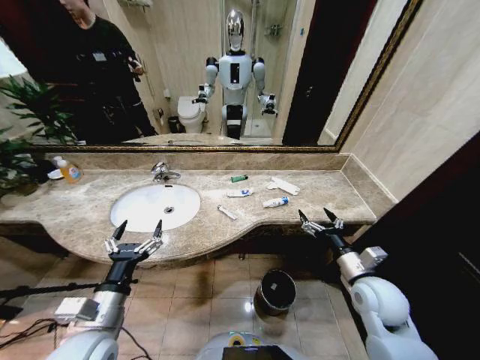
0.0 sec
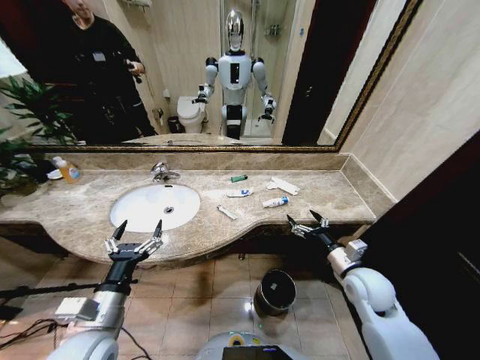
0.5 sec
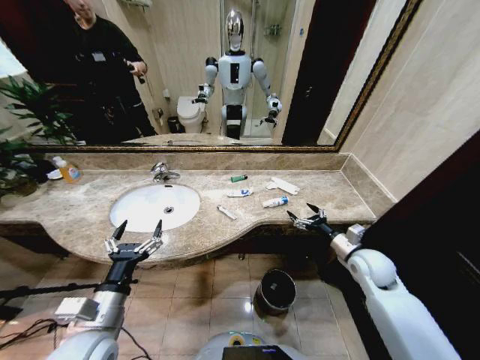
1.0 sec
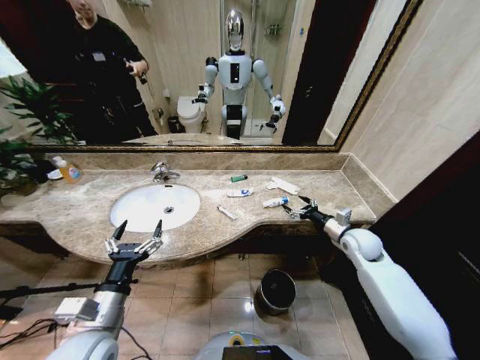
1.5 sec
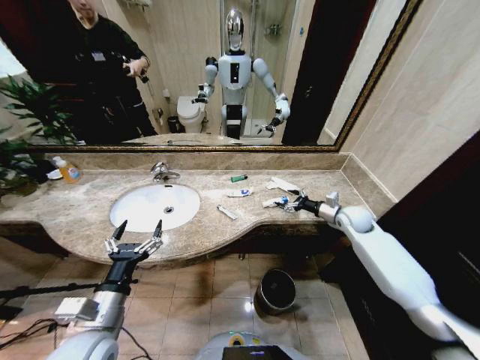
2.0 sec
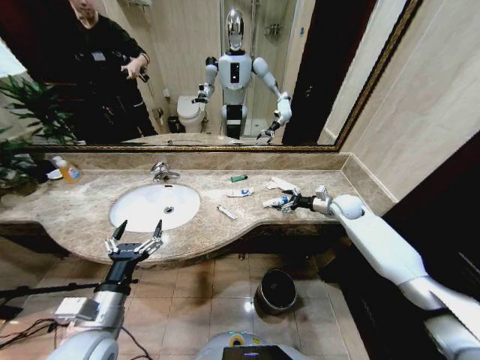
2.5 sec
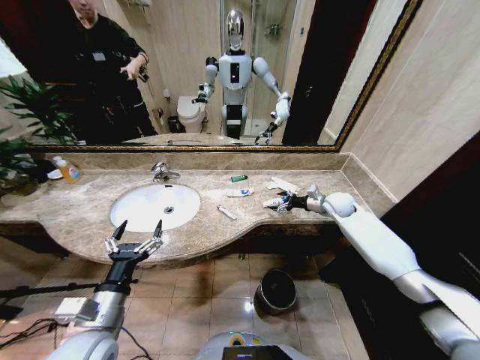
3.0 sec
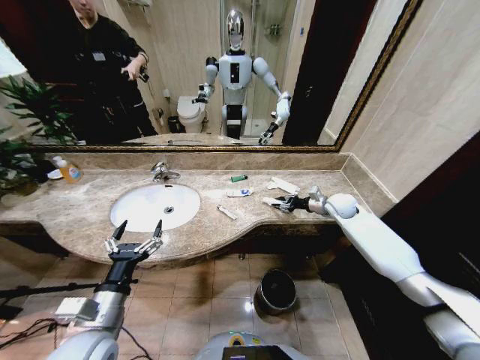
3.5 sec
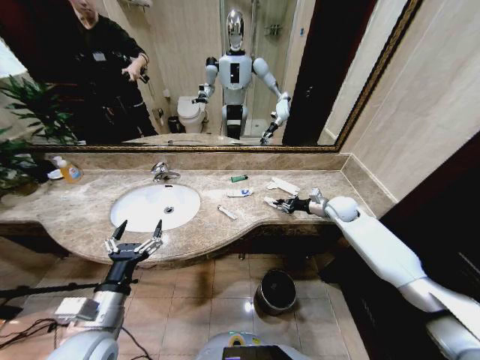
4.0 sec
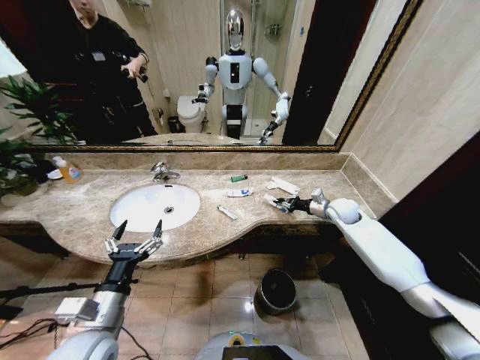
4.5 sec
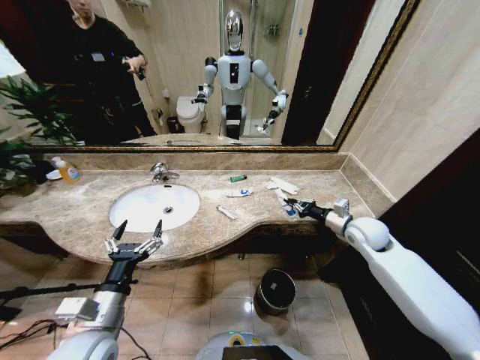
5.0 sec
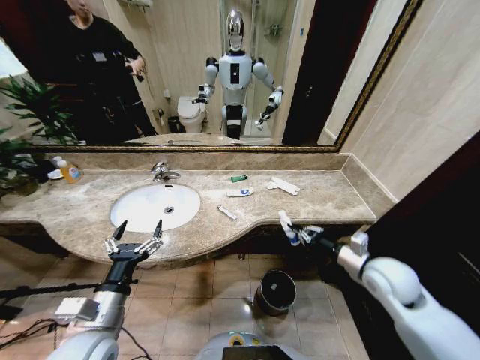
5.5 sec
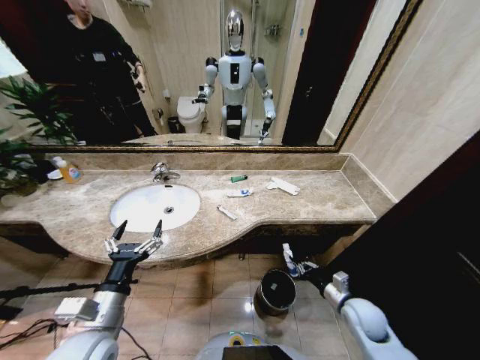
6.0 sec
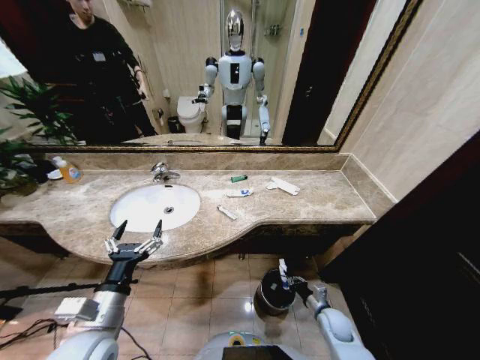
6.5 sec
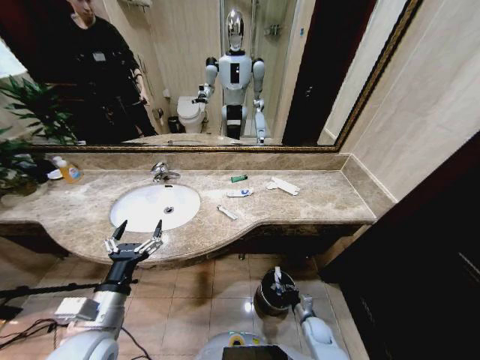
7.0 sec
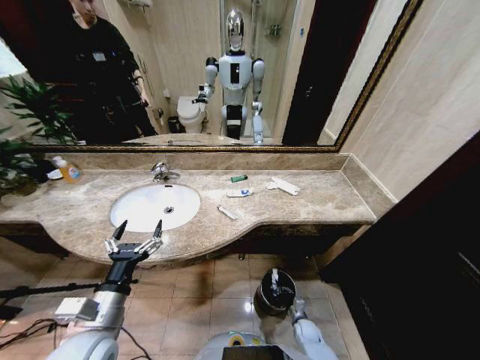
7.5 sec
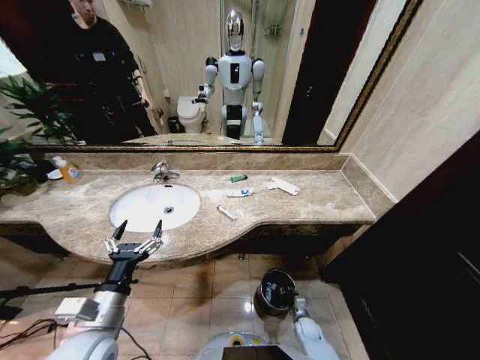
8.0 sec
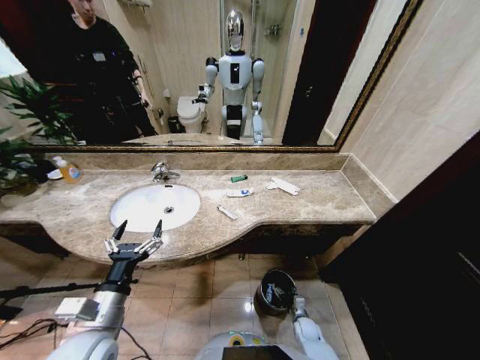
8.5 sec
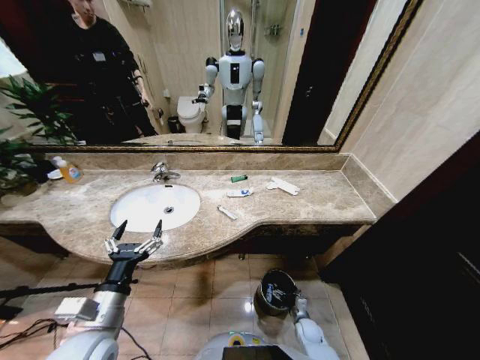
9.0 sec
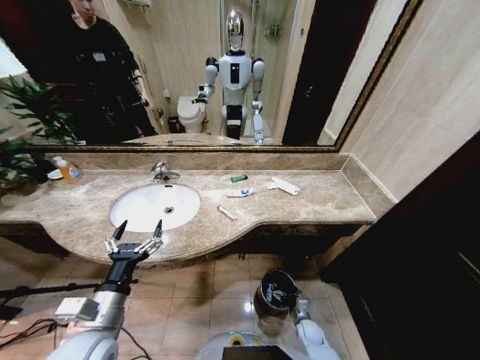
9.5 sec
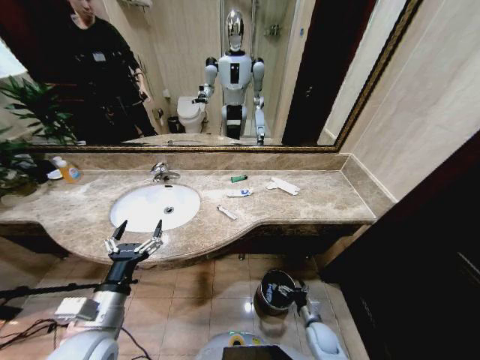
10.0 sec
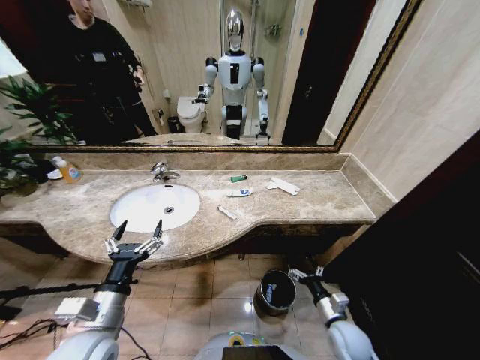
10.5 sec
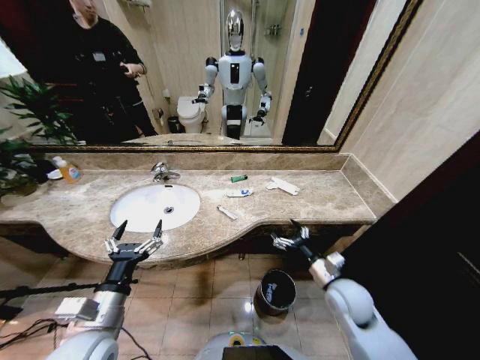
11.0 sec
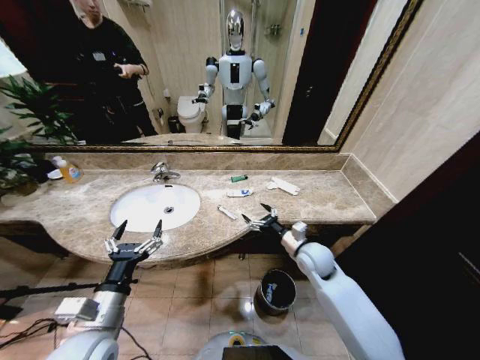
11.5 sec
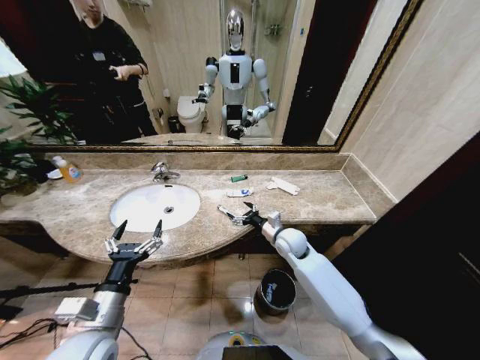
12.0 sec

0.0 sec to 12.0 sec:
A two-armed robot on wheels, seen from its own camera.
Task of the whole recording: Pick up the trash from the sink and place it in the trash bin.
2.0 sec to 4.0 sec: The right gripper closes.
4.0 sec to 6.0 sec: The right gripper shifts about 30 cm backward and downward.
6.0 sec to 8.0 sec: The right gripper travels downward by about 25 cm.
8.0 sec to 10.0 sec: The right gripper travels upward by approximately 5 cm, and opens up.
10.0 sec to 12.0 sec: The right gripper heads upward, forward and to the left, covering some 35 cm.

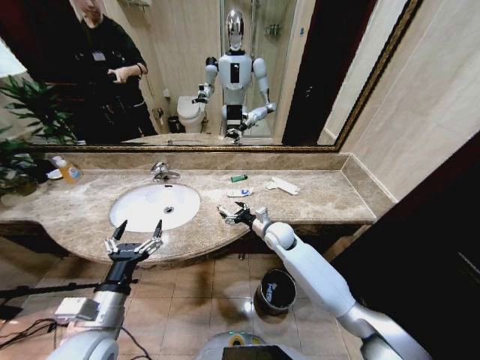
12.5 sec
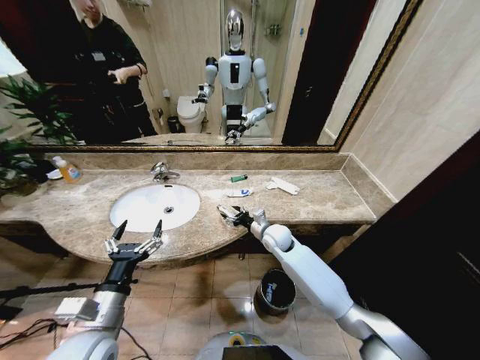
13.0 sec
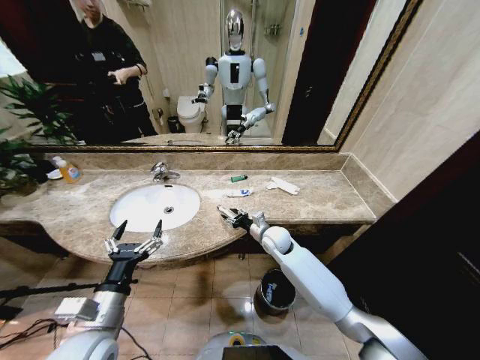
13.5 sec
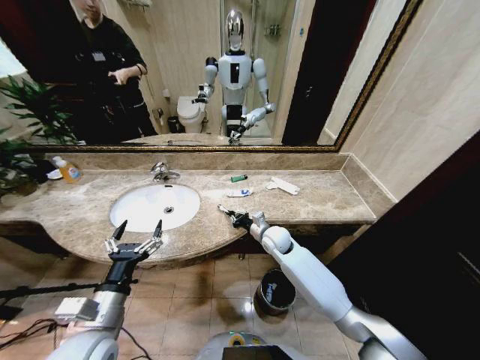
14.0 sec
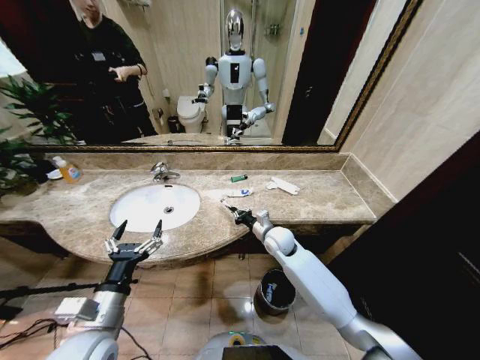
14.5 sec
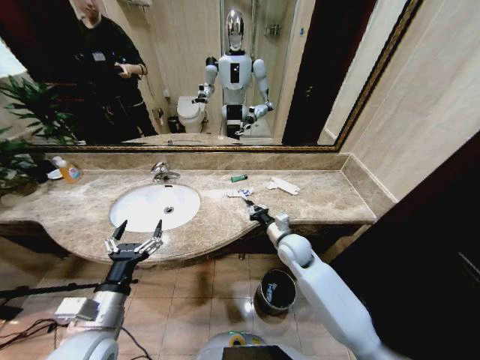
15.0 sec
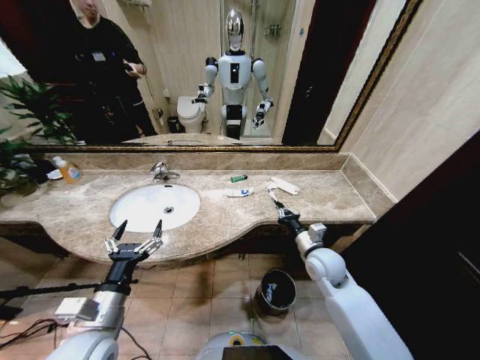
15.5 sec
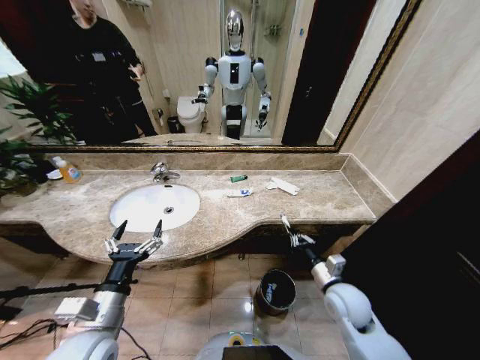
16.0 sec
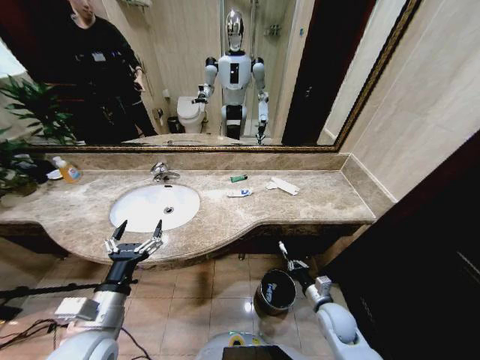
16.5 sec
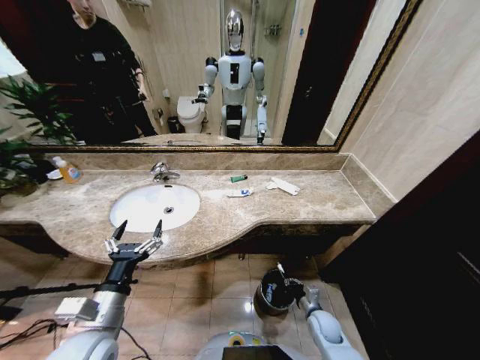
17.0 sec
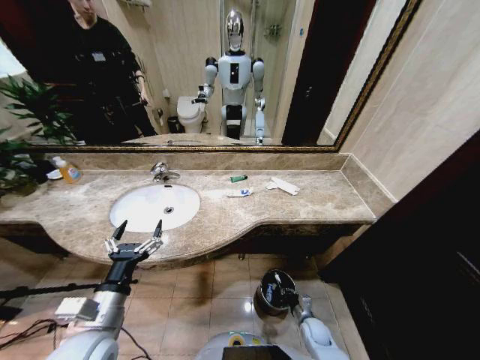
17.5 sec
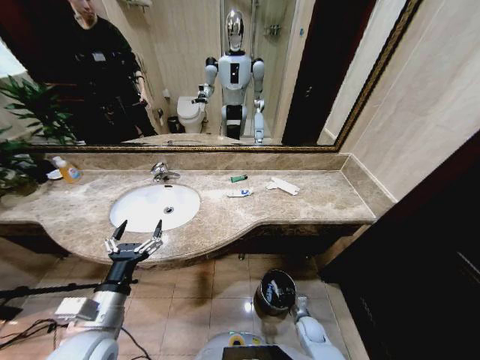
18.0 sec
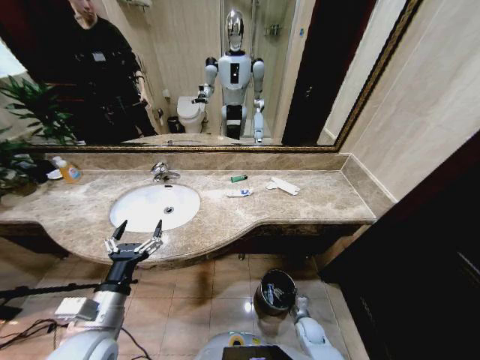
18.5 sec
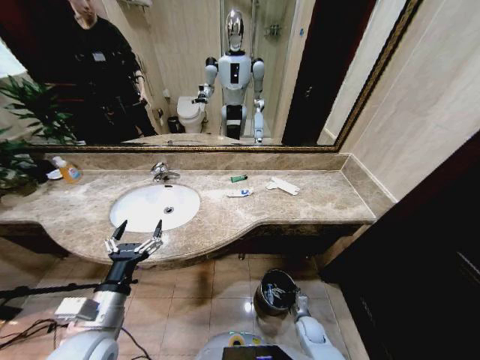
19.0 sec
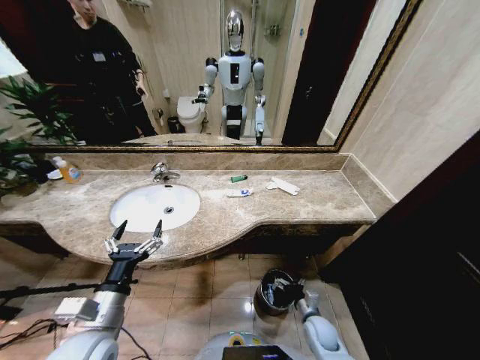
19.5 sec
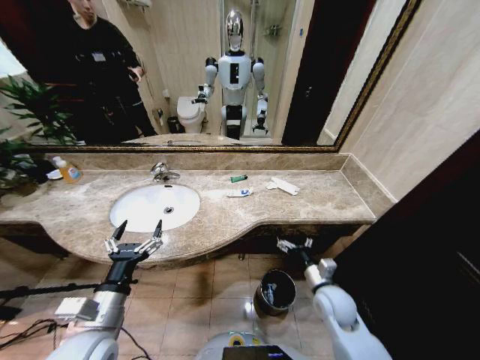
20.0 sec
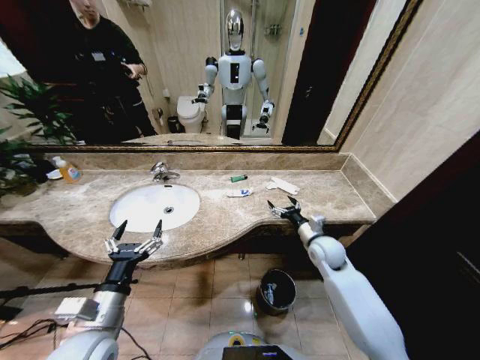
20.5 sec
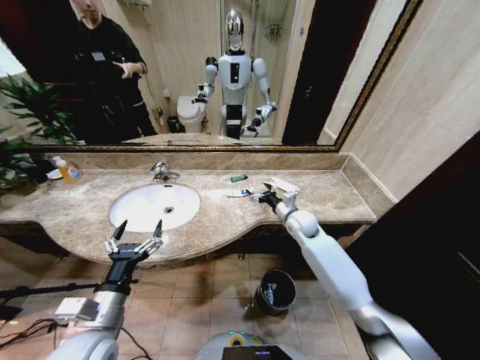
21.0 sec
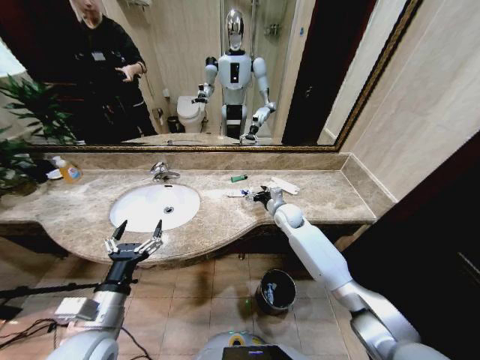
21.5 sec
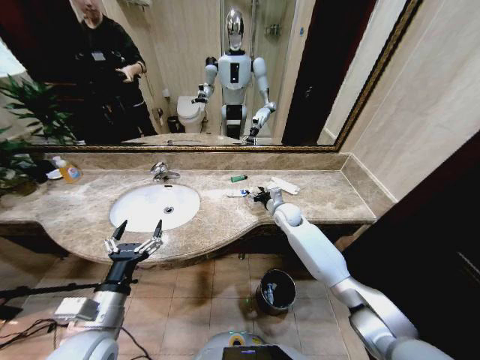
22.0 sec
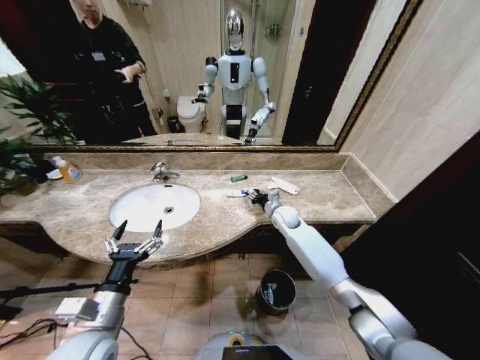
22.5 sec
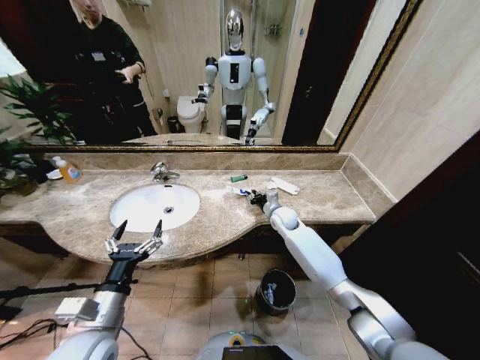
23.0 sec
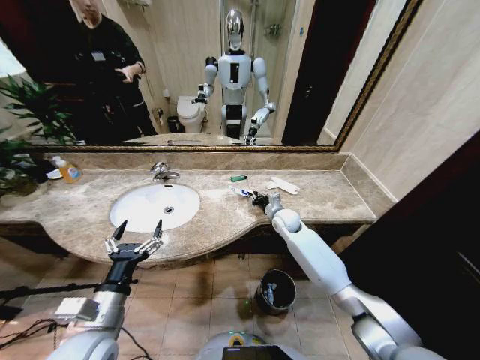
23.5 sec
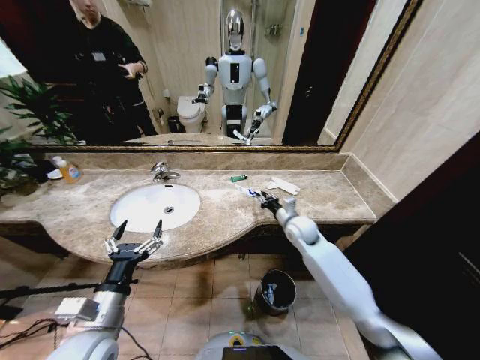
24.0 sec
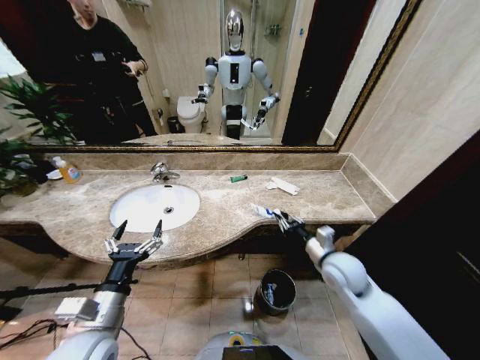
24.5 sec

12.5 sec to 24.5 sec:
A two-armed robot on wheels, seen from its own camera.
Task of the whole recording: Pick up the trash from the sink and place it in the trash bin.
12.5 sec to 14.5 sec: The right gripper closes its fingers.
14.5 sec to 16.5 sec: The right gripper goes about 30 cm backward, to the right and downward.
16.5 sec to 18.5 sec: The right gripper heads downward, covering roughly 15 cm, and opens.
18.5 sec to 20.5 sec: The right gripper heads upward and forward, covering roughly 35 cm.
20.5 sec to 22.5 sec: The right gripper heads forward and to the left, covering some 15 cm, and closes.
22.5 sec to 24.5 sec: The right gripper shifts some 25 cm backward.

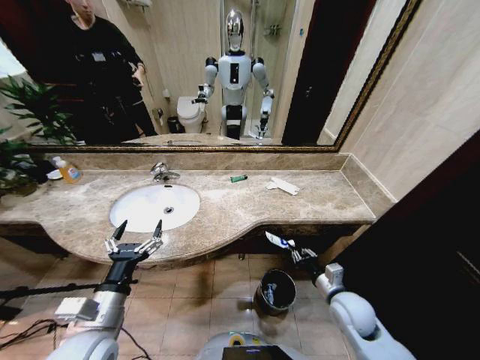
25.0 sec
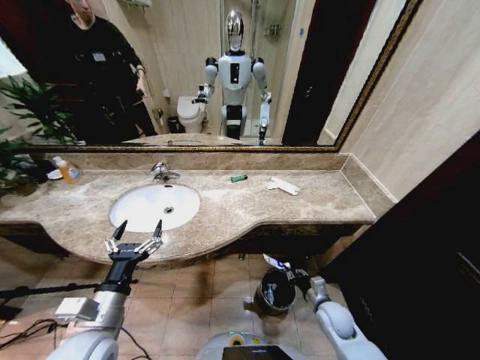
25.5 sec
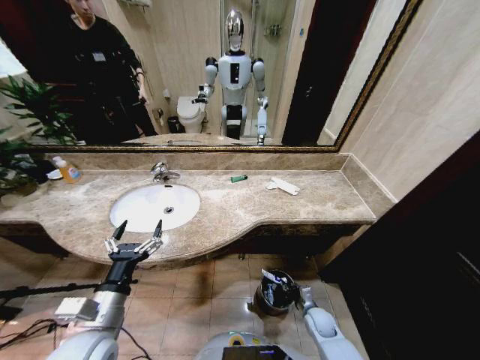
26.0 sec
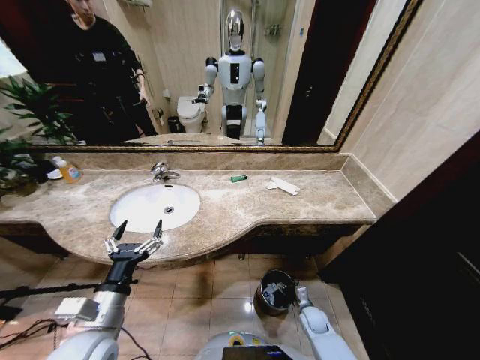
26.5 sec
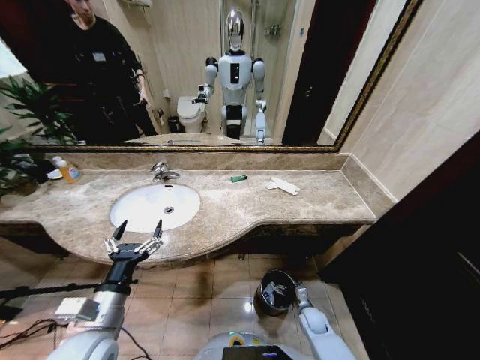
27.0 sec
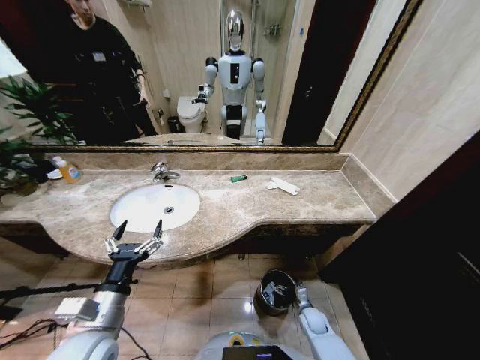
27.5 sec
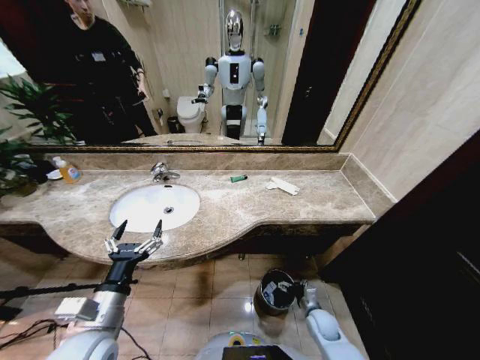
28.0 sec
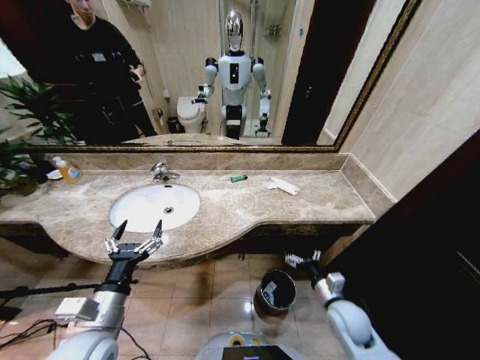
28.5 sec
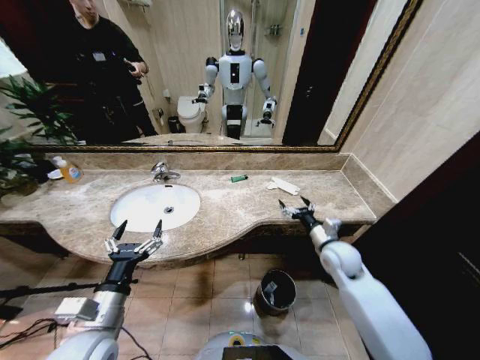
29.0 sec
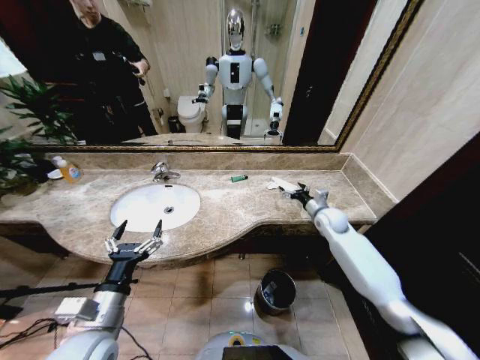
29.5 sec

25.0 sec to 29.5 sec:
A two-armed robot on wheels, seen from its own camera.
Task of the whole recording: Pick up the trash from the sink and place it in the trash bin.
25.0 sec to 27.0 sec: The right gripper shifts roughly 25 cm downward, and opens up.
27.0 sec to 29.5 sec: The right gripper goes approximately 40 cm upward and forward.
